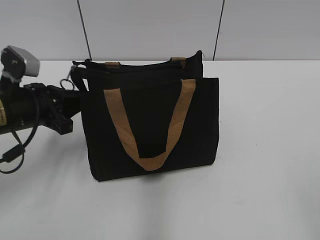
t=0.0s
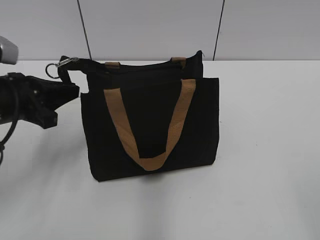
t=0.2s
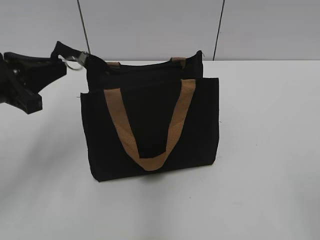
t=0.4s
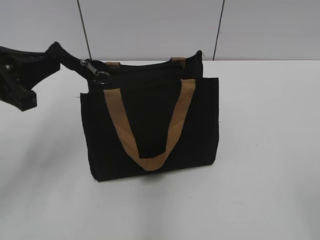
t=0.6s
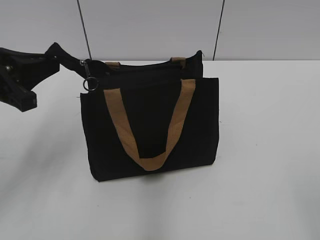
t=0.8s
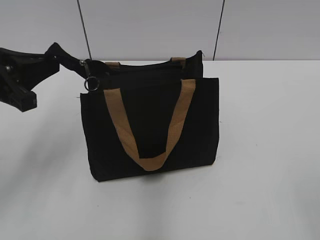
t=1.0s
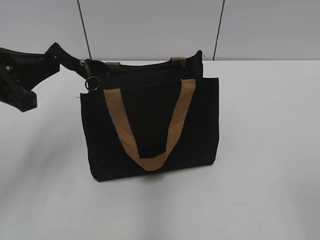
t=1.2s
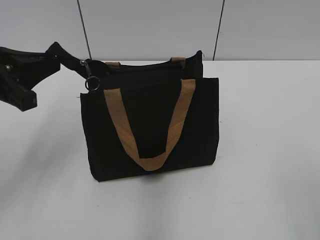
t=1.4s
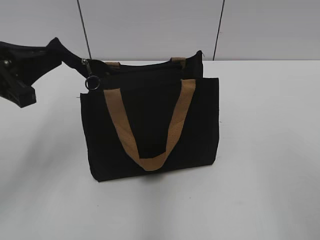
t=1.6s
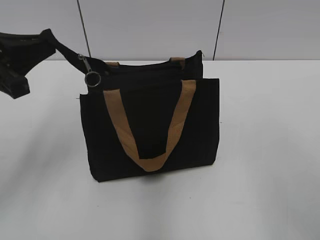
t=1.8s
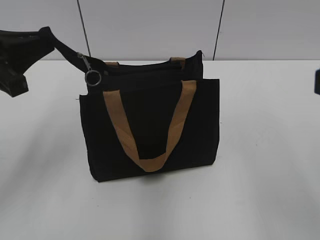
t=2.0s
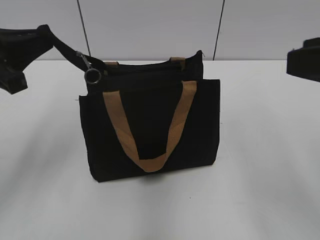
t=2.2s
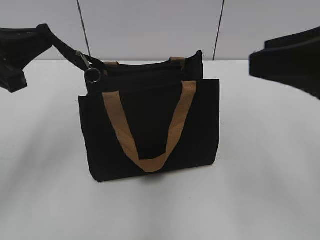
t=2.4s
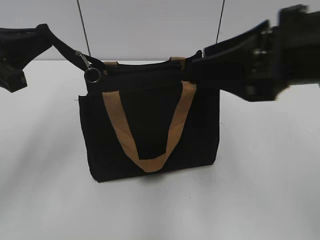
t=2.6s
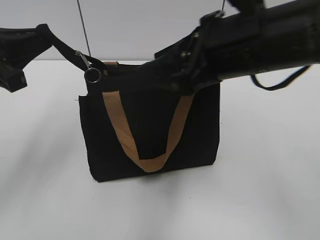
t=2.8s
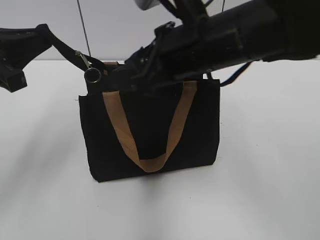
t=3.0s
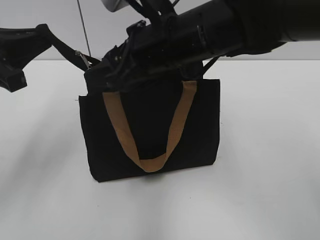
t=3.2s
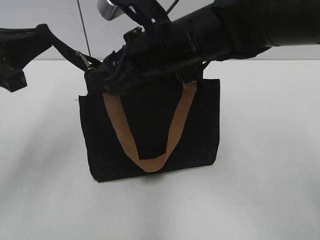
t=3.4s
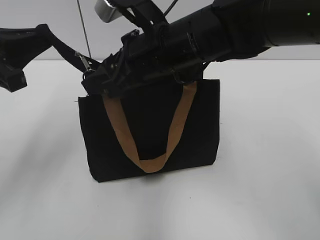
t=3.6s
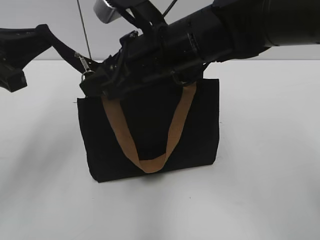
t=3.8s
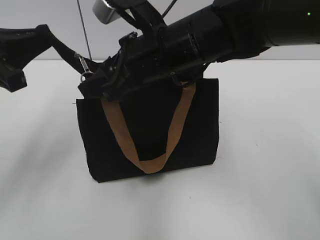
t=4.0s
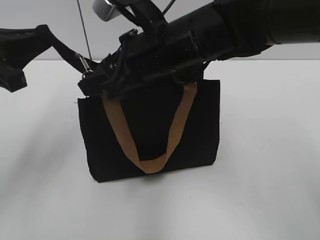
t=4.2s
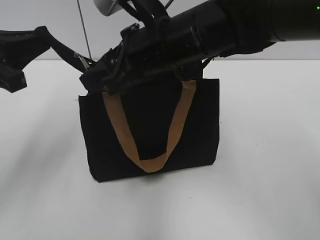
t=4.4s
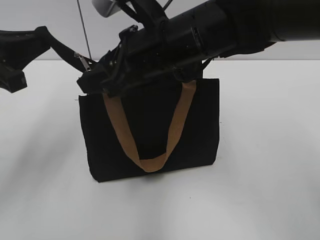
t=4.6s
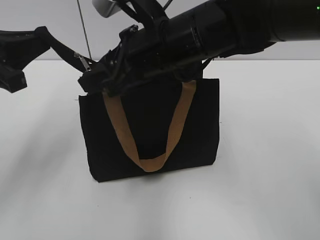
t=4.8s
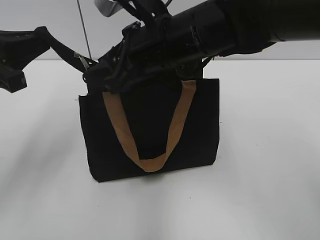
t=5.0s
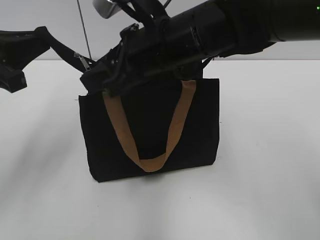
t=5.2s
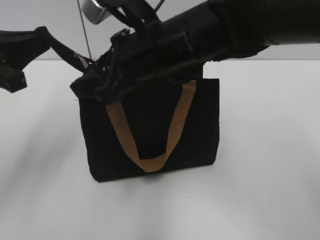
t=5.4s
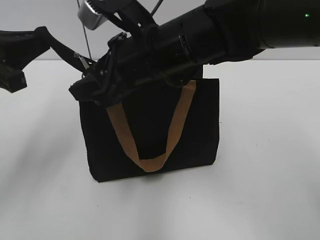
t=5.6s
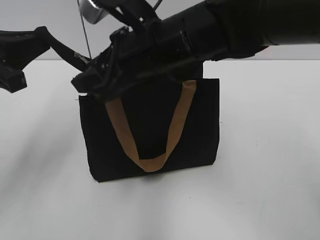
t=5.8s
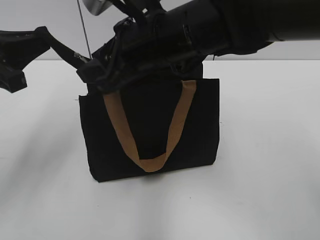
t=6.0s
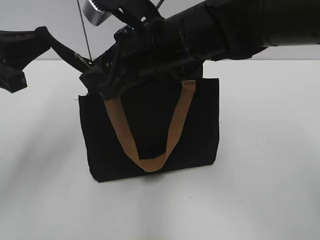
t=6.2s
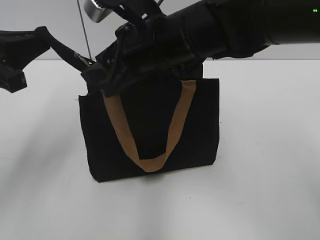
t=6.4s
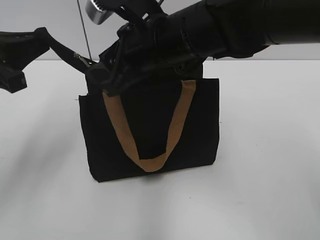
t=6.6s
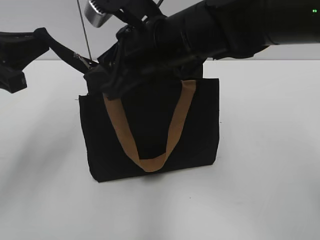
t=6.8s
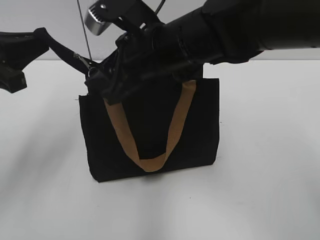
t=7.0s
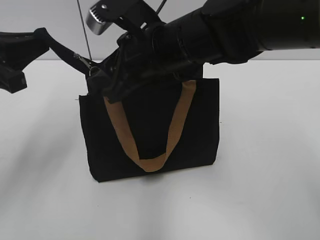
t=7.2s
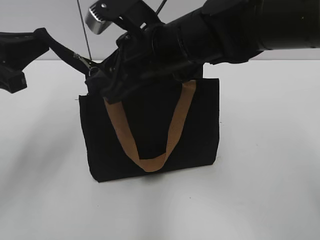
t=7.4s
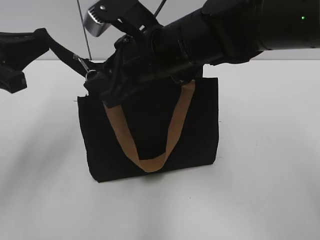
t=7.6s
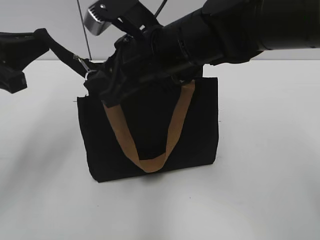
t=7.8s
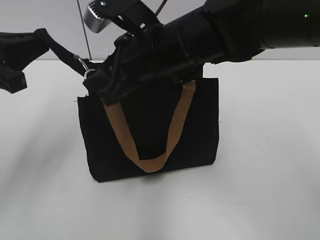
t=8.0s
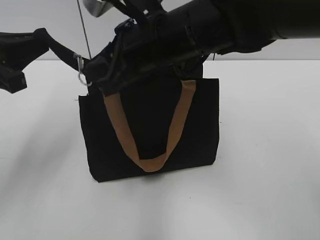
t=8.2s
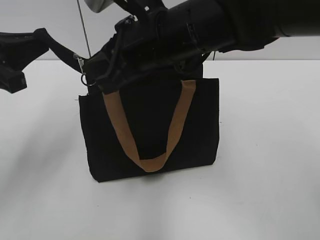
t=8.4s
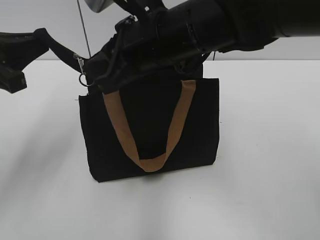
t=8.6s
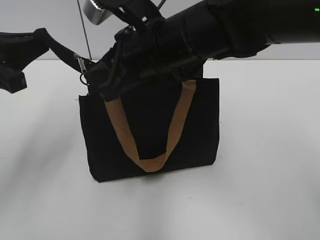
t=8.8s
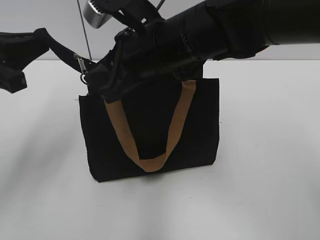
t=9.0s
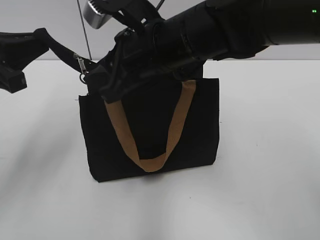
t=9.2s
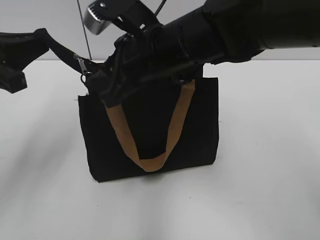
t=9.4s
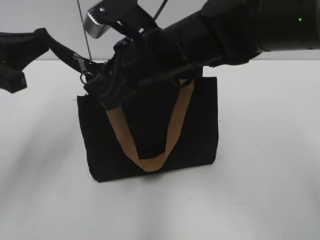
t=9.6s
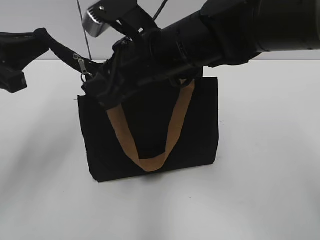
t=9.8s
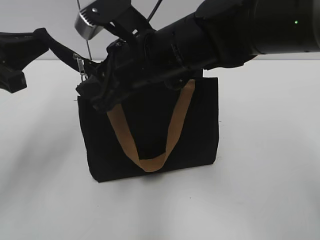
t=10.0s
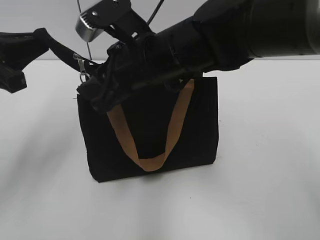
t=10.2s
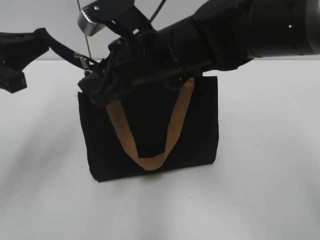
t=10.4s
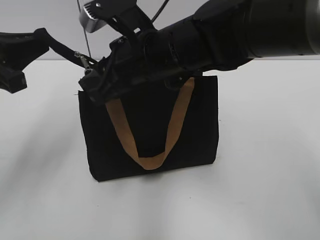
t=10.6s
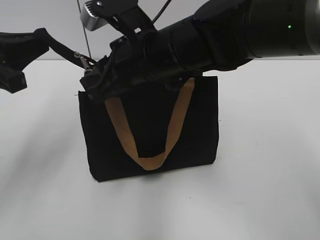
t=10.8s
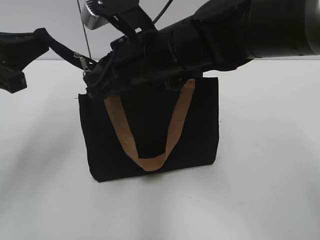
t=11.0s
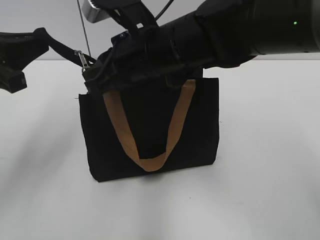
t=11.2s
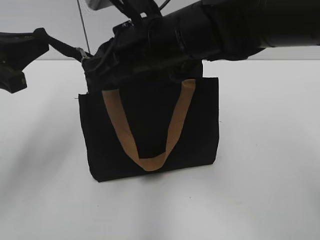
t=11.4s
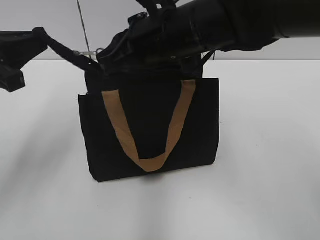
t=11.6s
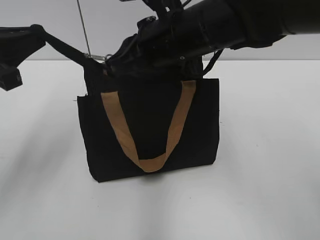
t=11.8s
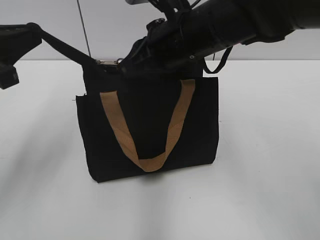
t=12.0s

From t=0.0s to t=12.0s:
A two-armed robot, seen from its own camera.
From t=0.0s to t=1.6s: The left gripper goes some 10 cm upward and backward.
From t=1.6s to t=3.0s: The right gripper travels forward and to the left by approximately 30 cm.
From t=3.0s to t=4.4s: The right gripper ends up roughly 5 cm from where it was.
From t=4.4s to t=10.4s: The grippers stay close to where they were, moving slightly.
From t=10.4s to t=12.0s: The right gripper moves some 5 cm, and closes its fingers.

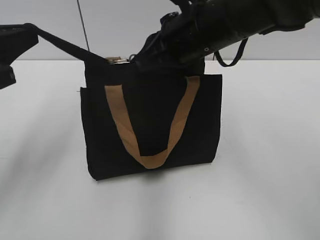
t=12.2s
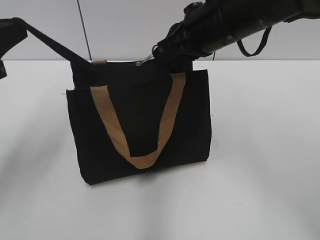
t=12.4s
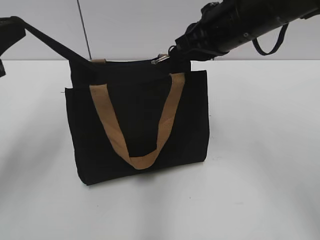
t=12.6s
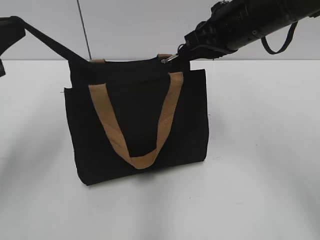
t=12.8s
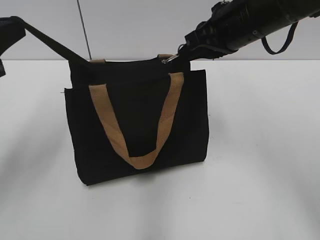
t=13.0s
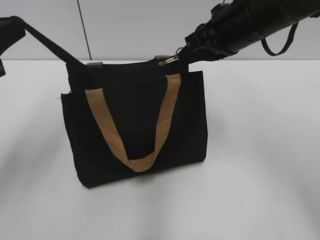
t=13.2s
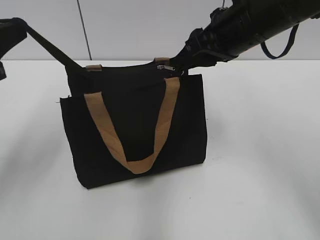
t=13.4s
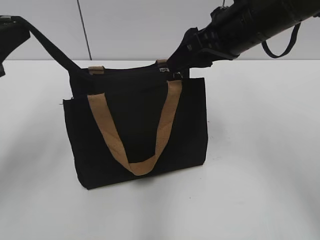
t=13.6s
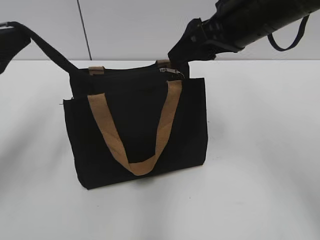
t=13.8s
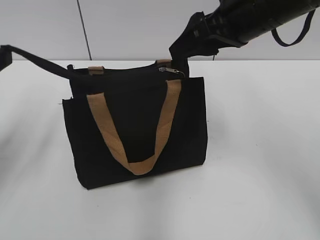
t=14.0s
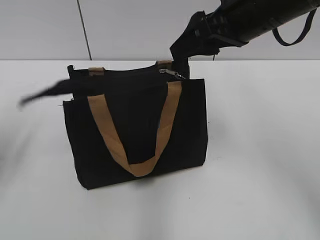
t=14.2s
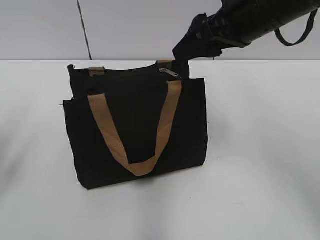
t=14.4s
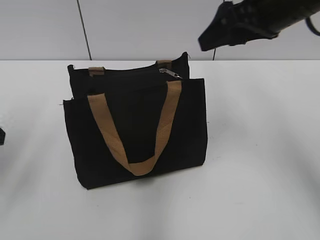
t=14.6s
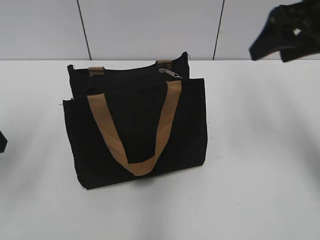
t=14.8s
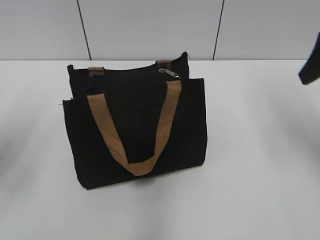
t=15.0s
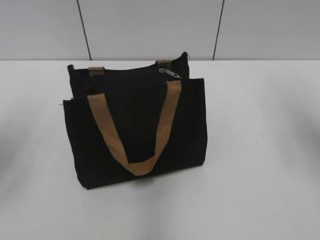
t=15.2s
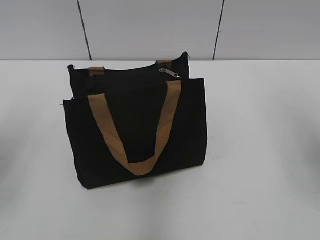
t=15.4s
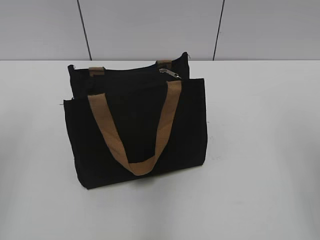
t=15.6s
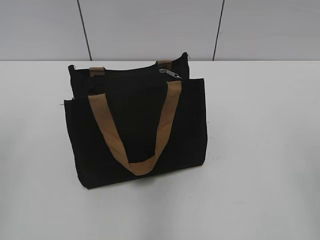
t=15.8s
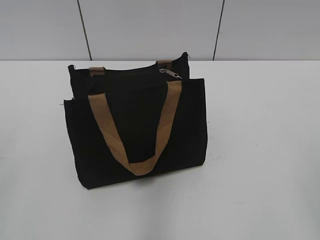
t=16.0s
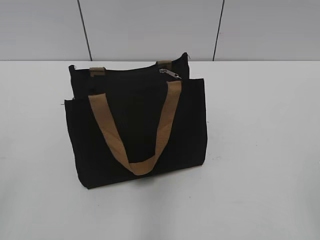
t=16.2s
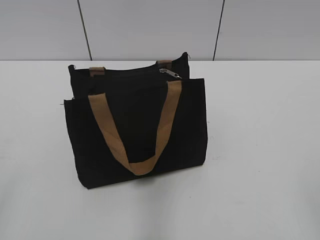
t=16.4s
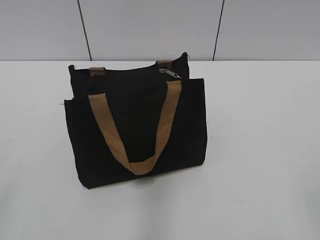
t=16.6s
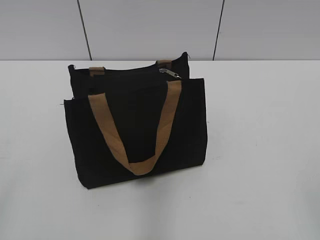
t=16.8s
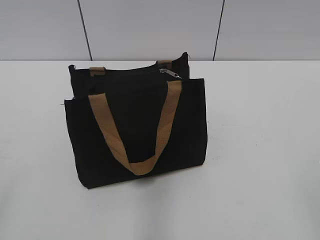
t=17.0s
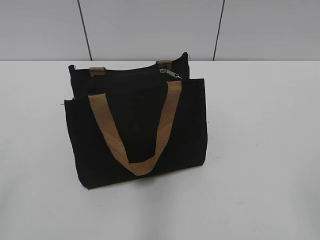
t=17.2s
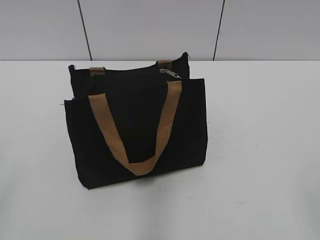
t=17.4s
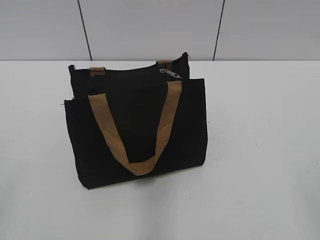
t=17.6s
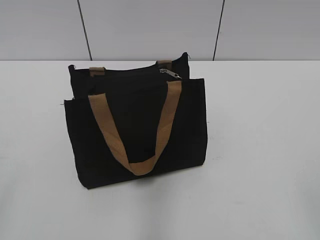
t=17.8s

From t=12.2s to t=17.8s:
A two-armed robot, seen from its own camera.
Step, from t=13.8s to t=14.4s: Grab the zipper with your left hand.
From t=12.2s to t=13.6s: The right gripper shifts about 5 cm to the right, and opens.
From t=13.6s to t=15.0s: The right gripper moves to the right, approximately 15 cm; the left gripper opens.
From t=15.0s to t=16.4s: Both grippers move backward, about 25 cm.

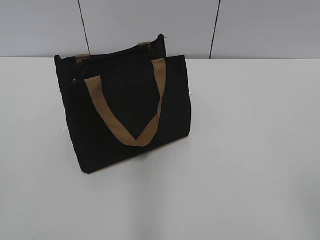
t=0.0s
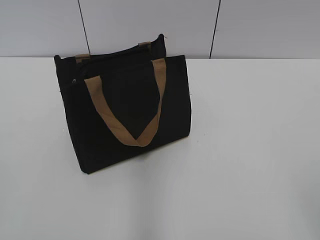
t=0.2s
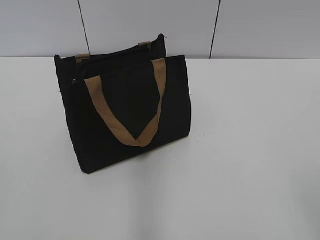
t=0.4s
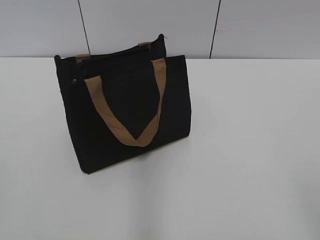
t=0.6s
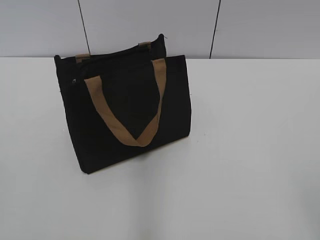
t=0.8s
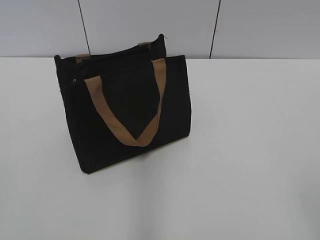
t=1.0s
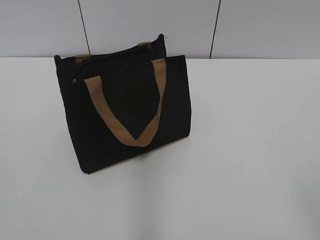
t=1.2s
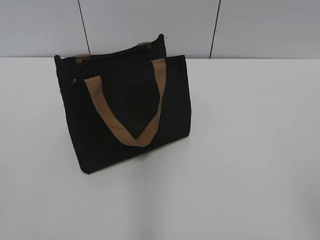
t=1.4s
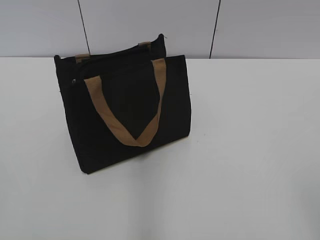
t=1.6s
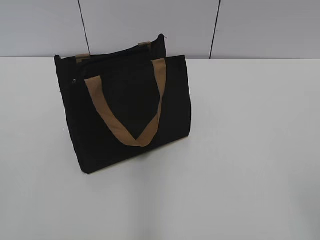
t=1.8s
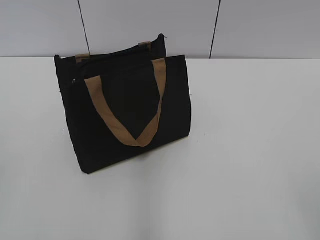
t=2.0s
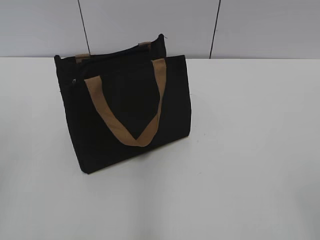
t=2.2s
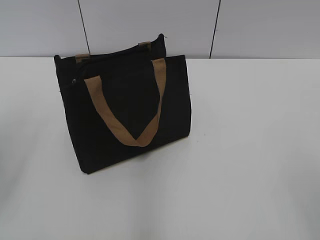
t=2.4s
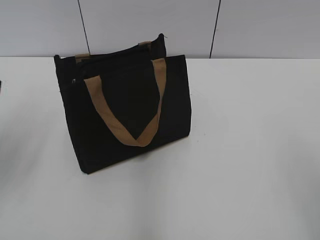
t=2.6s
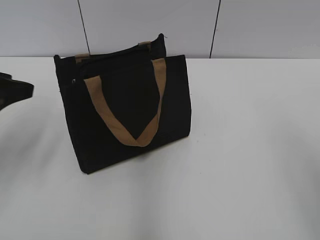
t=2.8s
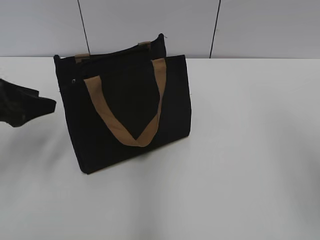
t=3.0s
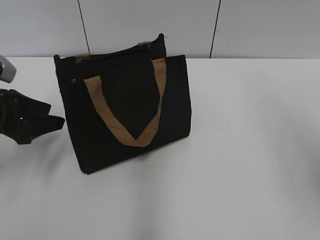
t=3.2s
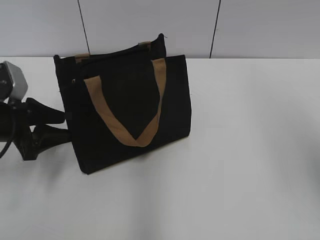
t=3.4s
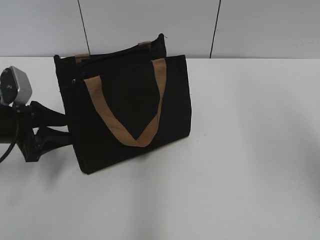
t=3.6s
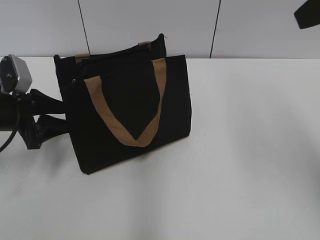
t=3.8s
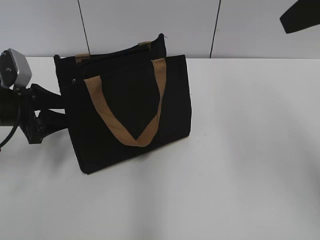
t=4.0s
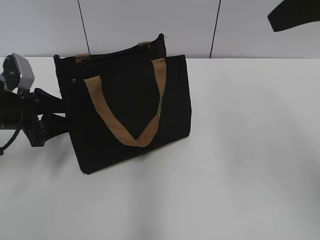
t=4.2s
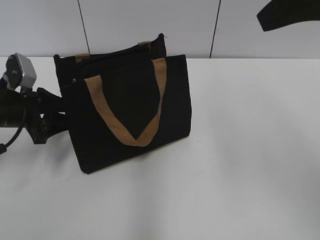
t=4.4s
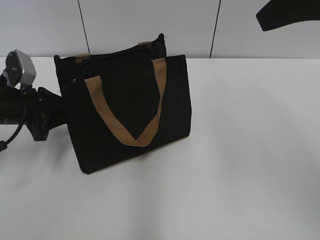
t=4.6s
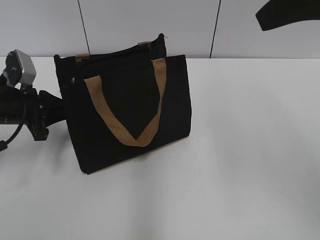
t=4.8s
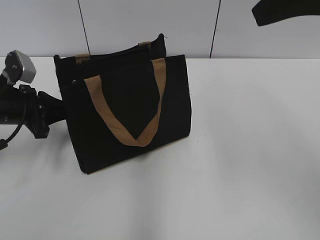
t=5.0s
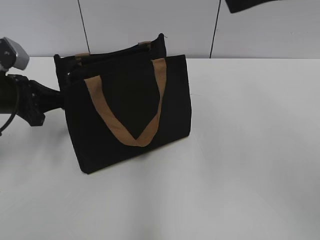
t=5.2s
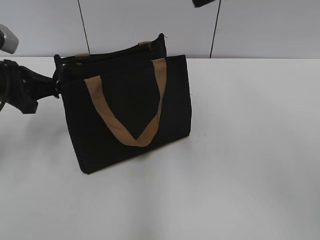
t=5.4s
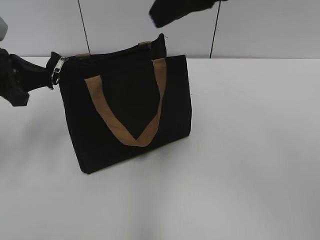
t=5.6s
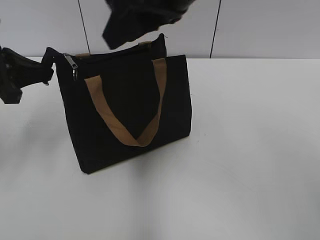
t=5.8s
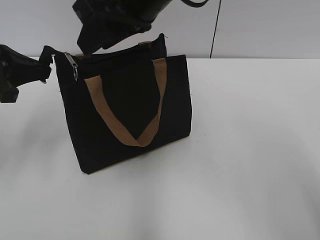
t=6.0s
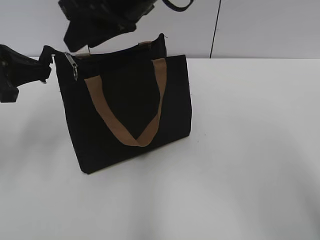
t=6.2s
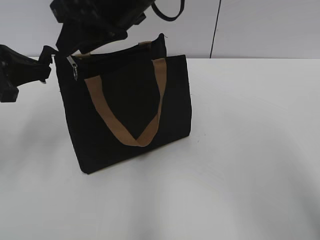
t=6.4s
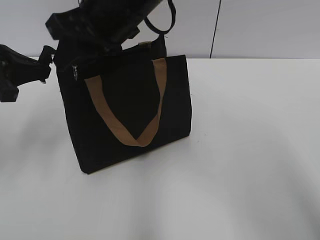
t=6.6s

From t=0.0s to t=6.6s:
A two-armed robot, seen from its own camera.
From t=1.6s to t=3.2s: The right gripper moves forward and upward, some 20 cm; the left gripper heads forward and downward, covering some 30 cm.
From t=3.2s to t=5.0s: The right gripper moves to the left and forward, some 10 cm, while the left gripper shifts by approximately 5 cm, and closes its fingers.
From t=5.0s to t=6.6s: The right gripper shifts approximately 25 cm to the left, forward and downward, while the left gripper shifts some 10 cm upward.
